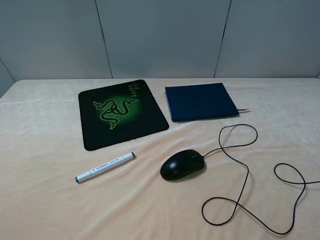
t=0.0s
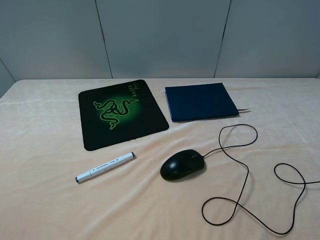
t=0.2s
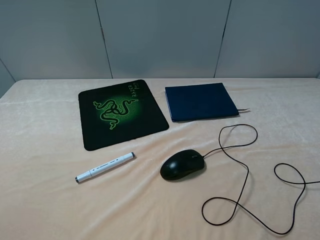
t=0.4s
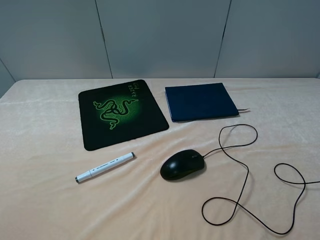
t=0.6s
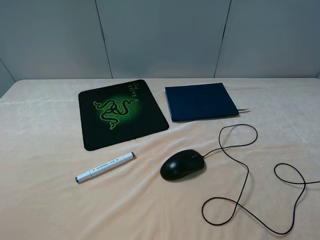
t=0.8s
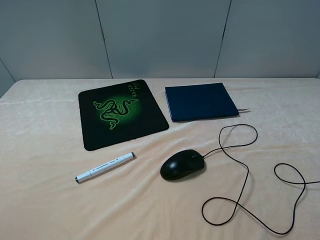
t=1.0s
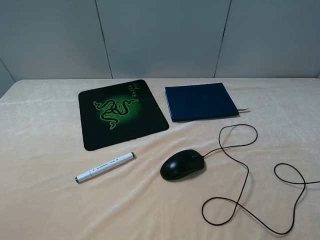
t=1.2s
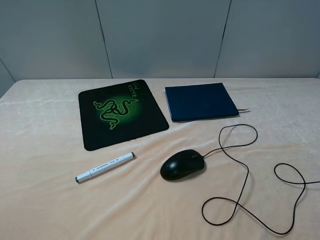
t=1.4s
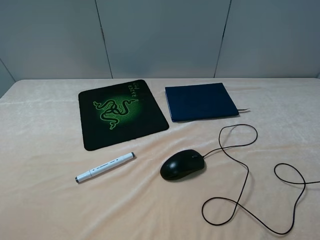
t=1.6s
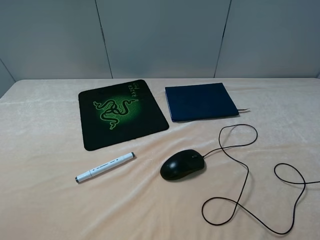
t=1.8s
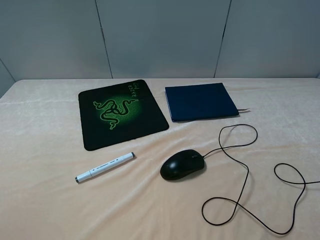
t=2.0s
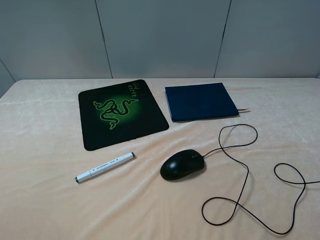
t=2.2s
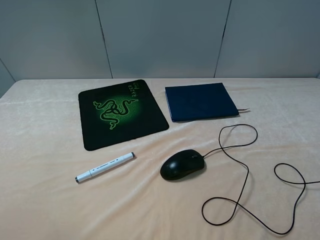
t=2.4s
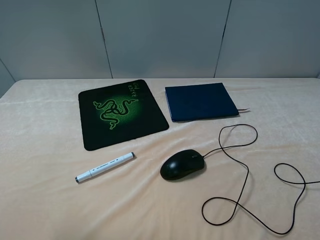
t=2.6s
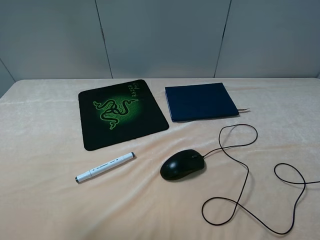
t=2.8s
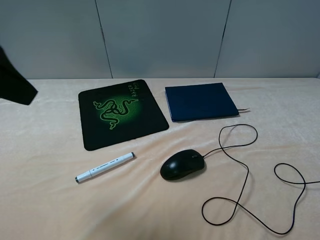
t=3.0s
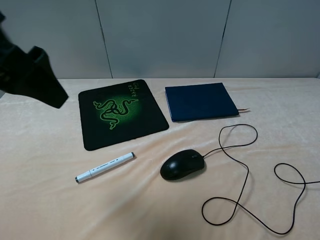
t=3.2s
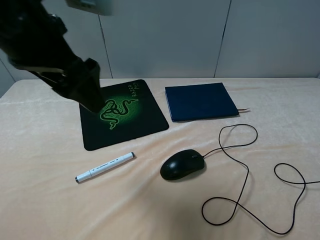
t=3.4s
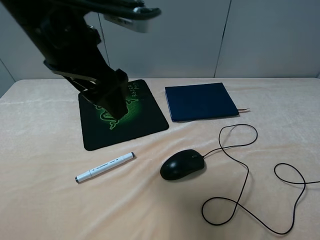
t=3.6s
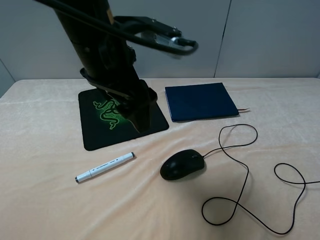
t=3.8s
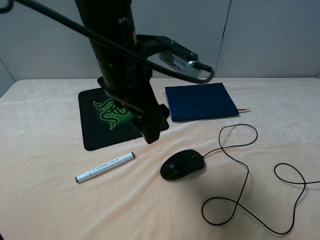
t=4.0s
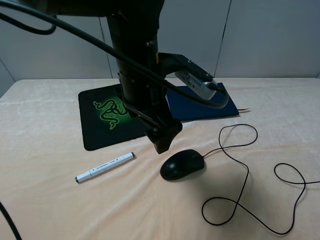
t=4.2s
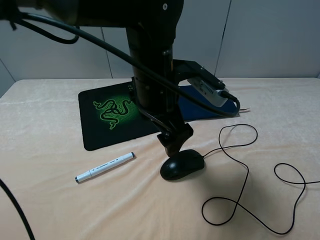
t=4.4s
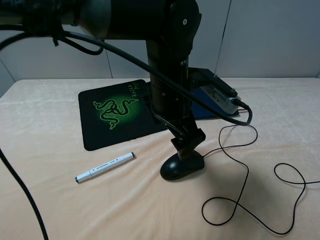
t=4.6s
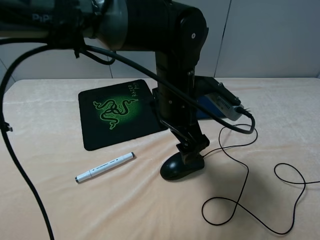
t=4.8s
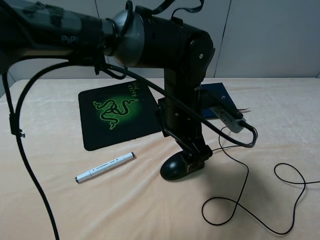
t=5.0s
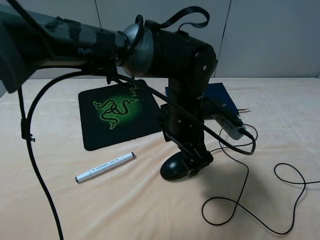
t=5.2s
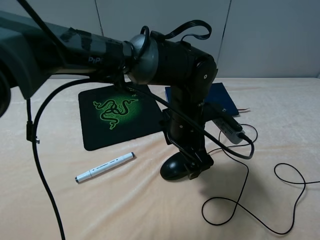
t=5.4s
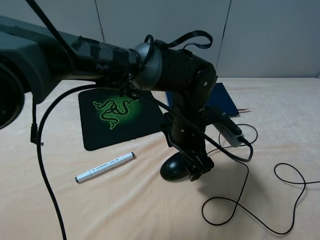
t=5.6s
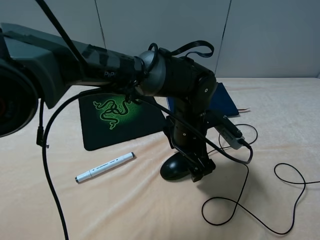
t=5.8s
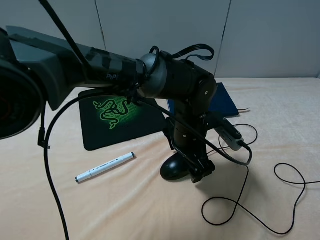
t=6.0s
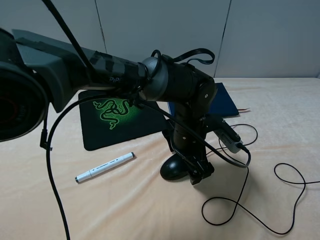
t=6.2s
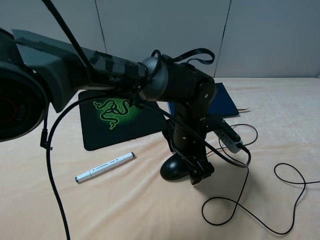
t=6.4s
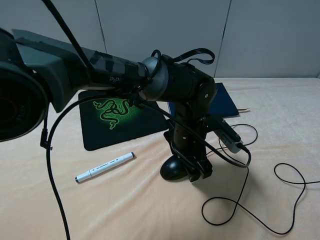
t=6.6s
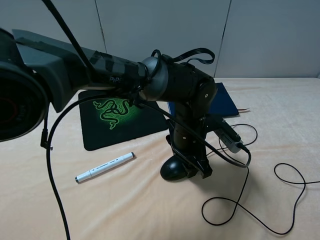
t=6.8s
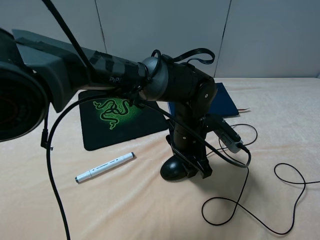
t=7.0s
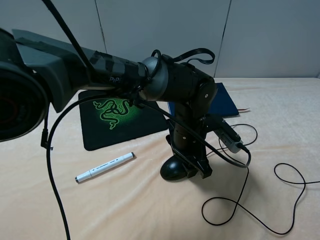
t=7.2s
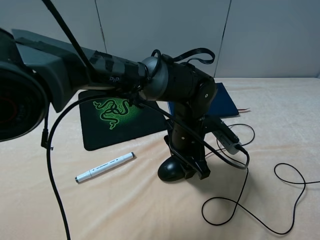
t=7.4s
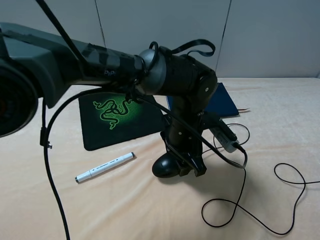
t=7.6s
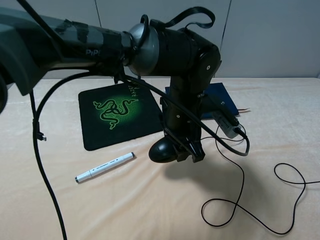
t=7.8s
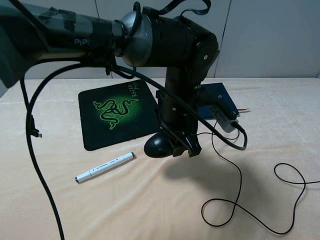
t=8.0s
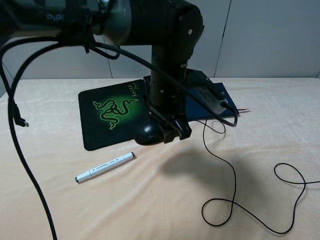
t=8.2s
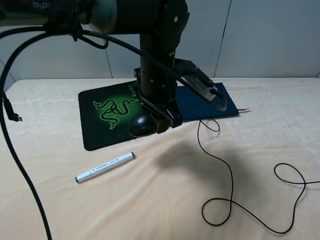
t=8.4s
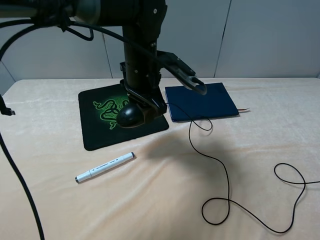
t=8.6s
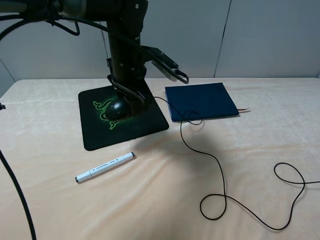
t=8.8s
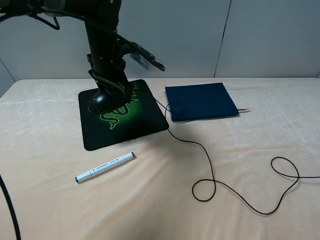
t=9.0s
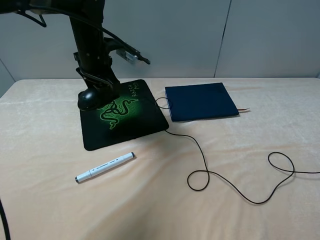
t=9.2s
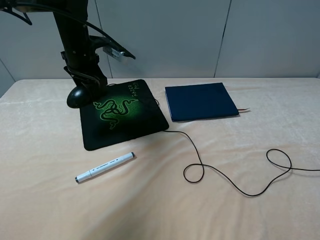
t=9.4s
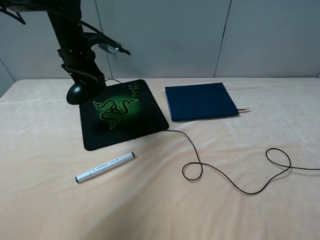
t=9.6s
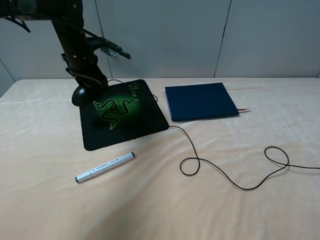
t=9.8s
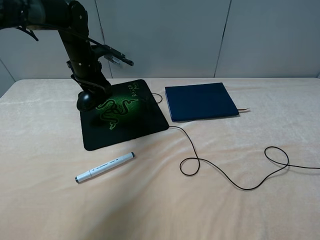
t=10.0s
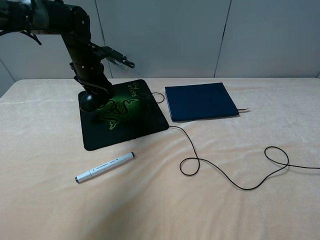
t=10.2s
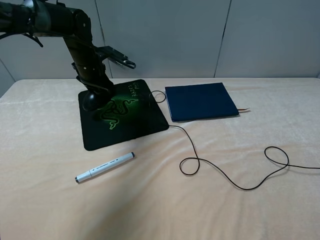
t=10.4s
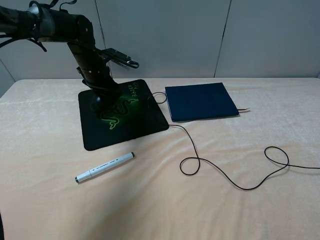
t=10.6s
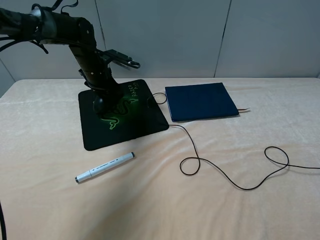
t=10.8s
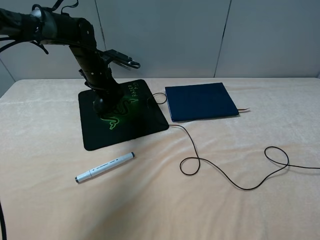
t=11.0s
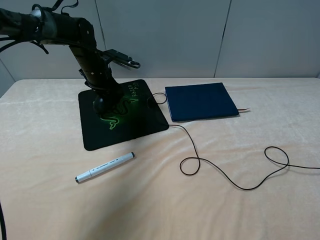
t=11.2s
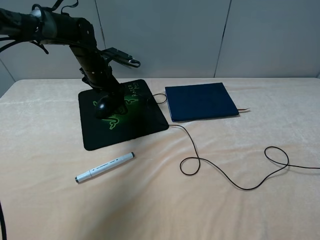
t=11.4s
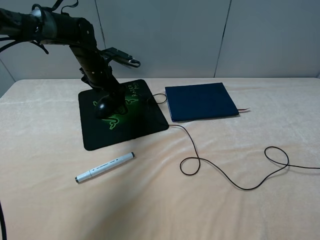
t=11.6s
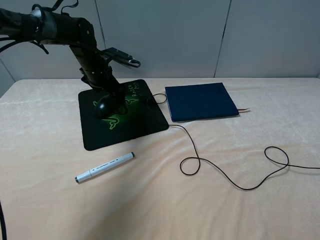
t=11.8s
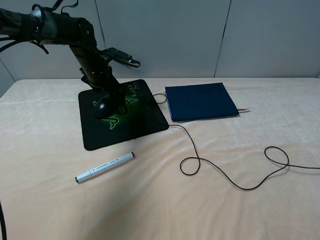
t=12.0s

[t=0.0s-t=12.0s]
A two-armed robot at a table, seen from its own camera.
Step, t=0.0s to t=7.2s: Grasp the mouse with the left gripper.
Step, t=7.4s to t=11.6s: Place the mouse on the mouse pad with the left gripper.
t=1.6s to t=3.0s: The left gripper is displaced forward, upward and to the right by roughly 20 cm.
t=3.0s to t=4.4s: The left gripper shifts about 30 cm to the right, downward and forward.
t=4.4s to t=6.0s: The left gripper shifts roughly 15 cm downward and to the right.
t=6.0s to t=7.6s: The left gripper closes up.
t=7.6s to t=9.0s: The left gripper goes roughly 20 cm to the left, forward and upward.
t=9.0s to t=10.4s: The left gripper heads to the left, forward and downward, covering roughly 15 cm.
t=10.4s to t=12.0s: The left gripper opens its fingers.

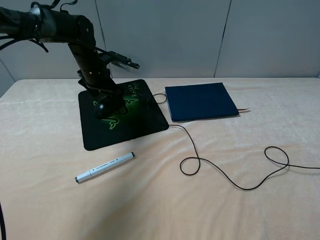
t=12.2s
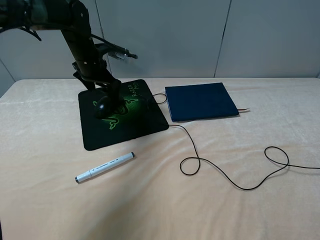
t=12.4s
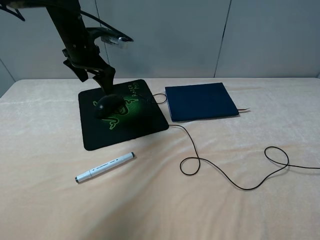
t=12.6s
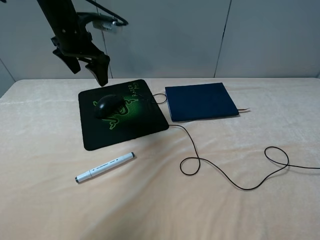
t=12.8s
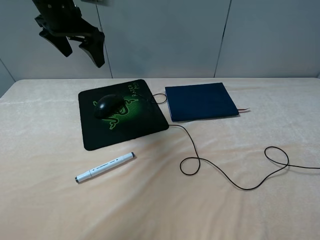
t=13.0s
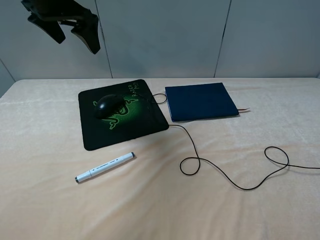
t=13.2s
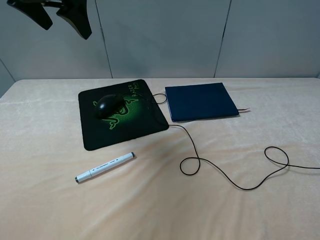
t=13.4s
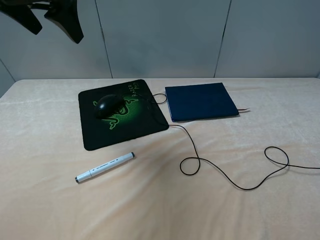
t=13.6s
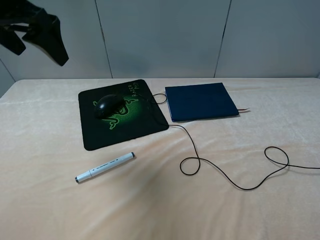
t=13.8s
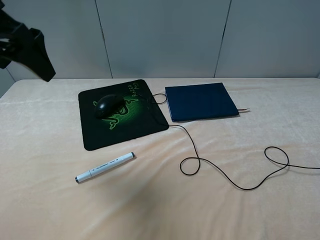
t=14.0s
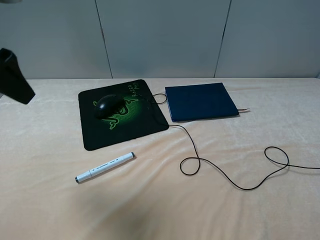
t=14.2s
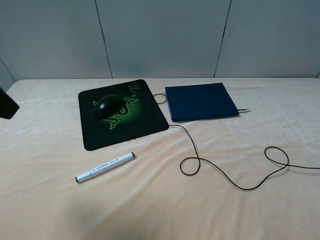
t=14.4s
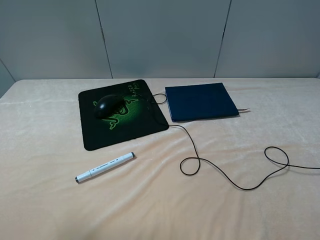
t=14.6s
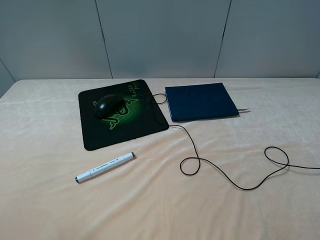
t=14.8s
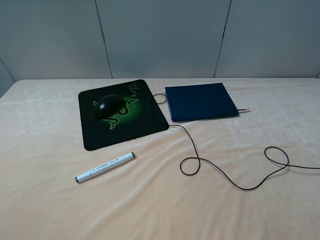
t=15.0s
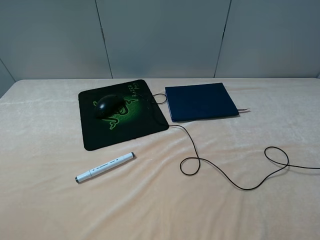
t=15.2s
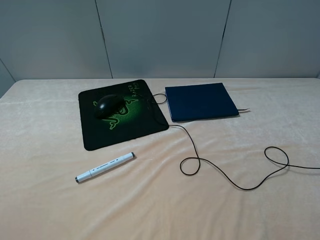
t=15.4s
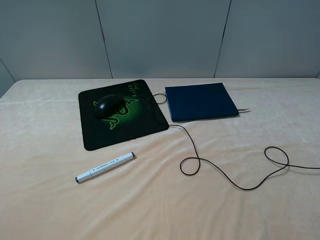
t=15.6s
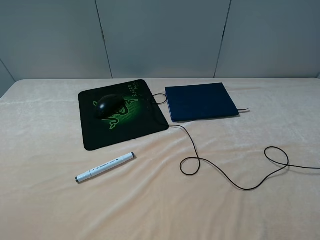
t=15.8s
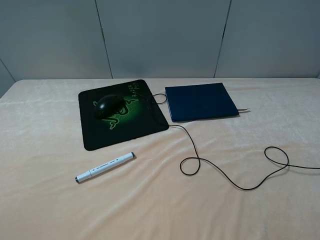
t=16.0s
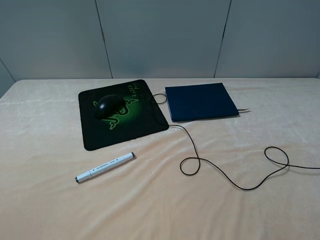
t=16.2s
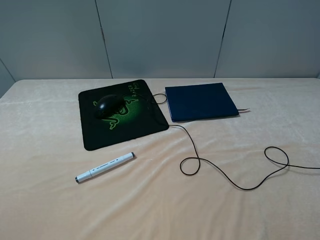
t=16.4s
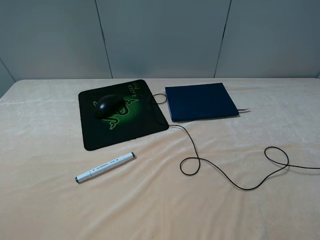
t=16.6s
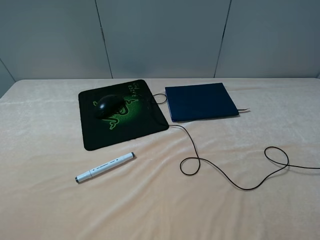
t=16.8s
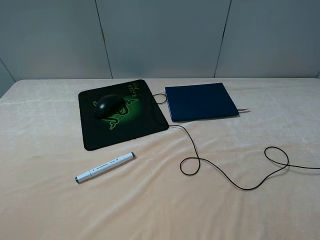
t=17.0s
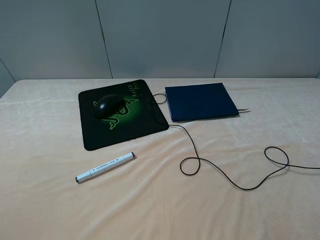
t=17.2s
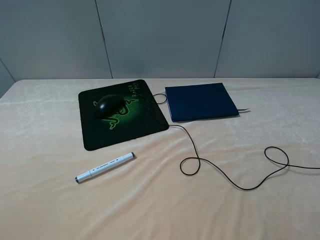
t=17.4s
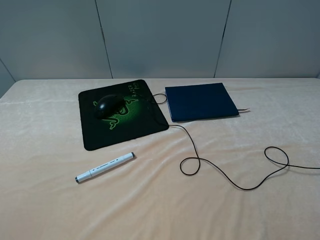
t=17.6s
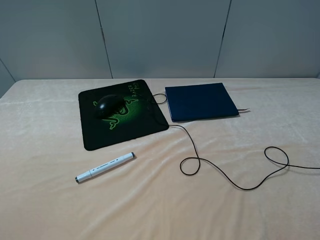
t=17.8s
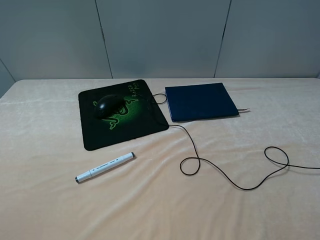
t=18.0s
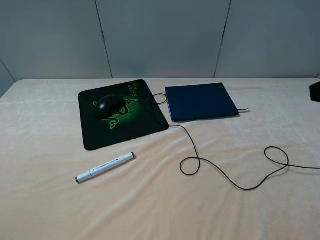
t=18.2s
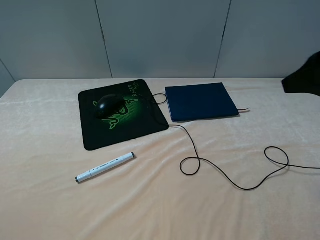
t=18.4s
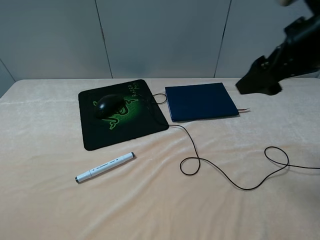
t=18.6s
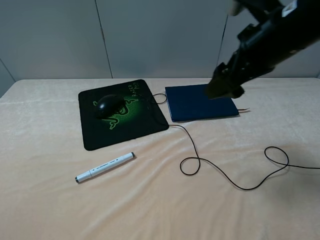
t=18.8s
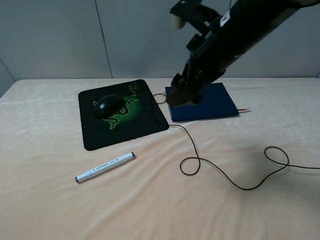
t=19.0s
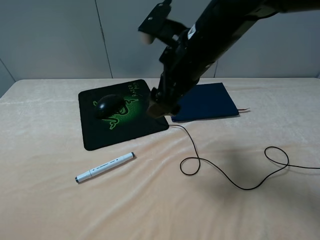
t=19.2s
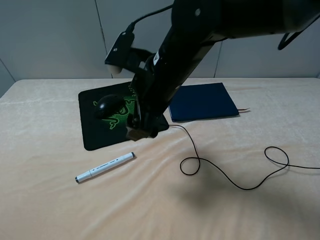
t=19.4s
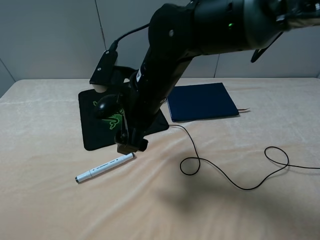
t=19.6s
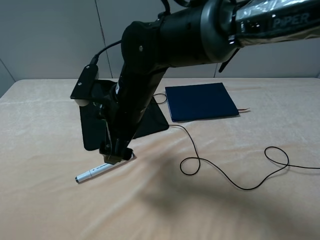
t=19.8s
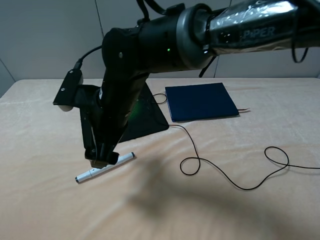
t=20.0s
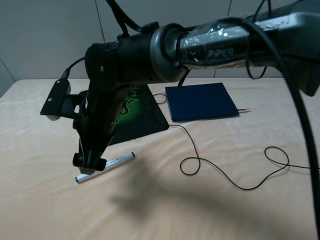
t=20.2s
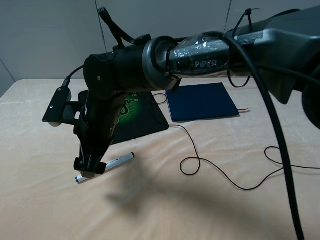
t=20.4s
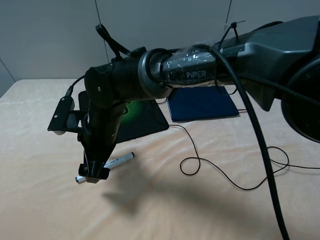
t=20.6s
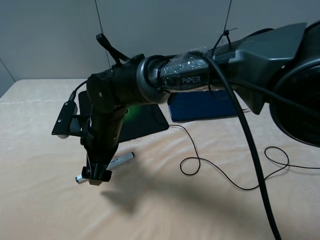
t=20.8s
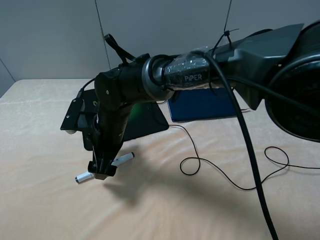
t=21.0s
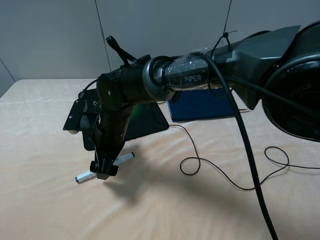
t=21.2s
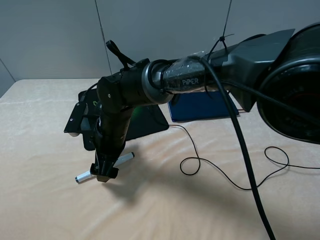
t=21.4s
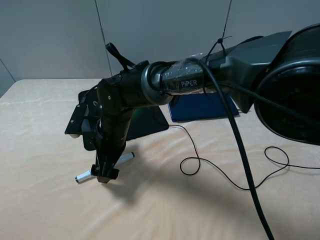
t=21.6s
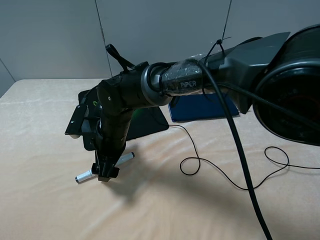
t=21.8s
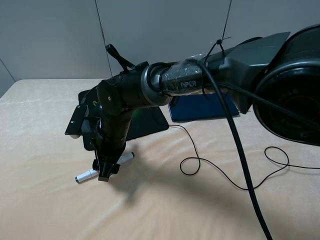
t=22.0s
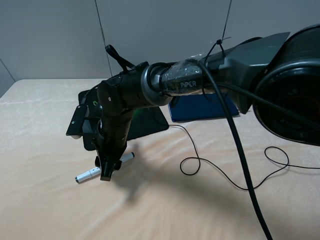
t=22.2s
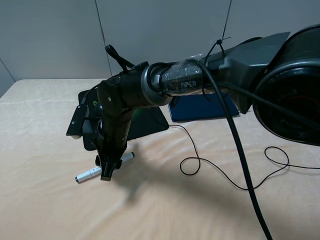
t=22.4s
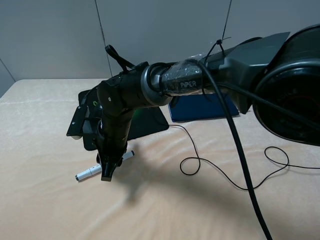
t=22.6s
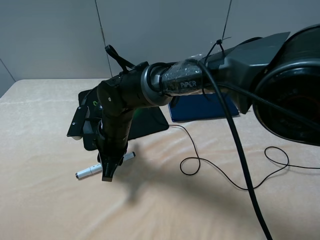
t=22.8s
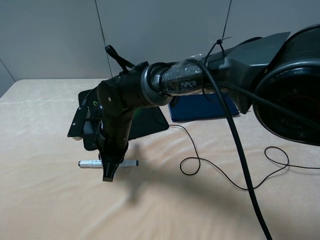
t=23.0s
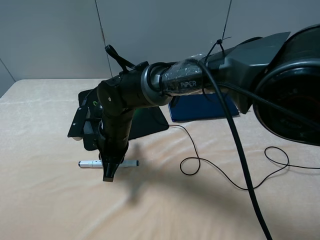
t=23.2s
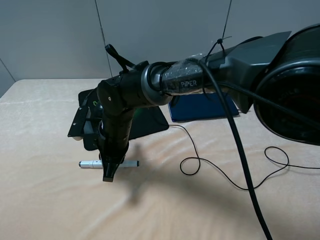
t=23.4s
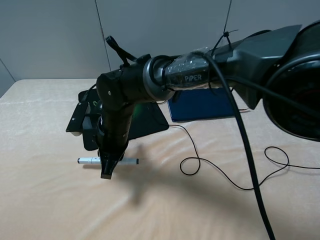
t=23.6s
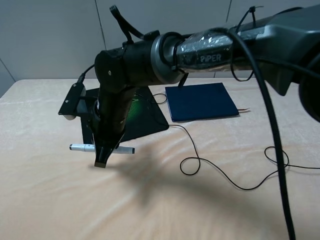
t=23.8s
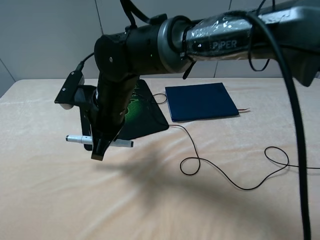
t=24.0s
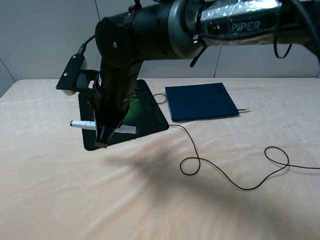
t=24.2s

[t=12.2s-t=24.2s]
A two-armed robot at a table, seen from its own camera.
Step, t=12.2s to t=23.2s: Grasp the marker with the right gripper.
t=12.2s to t=13.8s: The left gripper travels upward and backward by about 30 cm.
t=13.8s to t=15.2s: The left gripper shifts approximately 25 cm backward.
t=18.2s to t=19.8s: The right gripper moves to the left, forward and downward, some 35 cm.
t=19.8s to t=21.2s: The right gripper shifts about 10 cm downward and to the left.
t=21.2s to t=22.6s: The right gripper closes its fingers.
t=22.6s to t=24.2s: The right gripper travels upward by roughly 10 cm.
